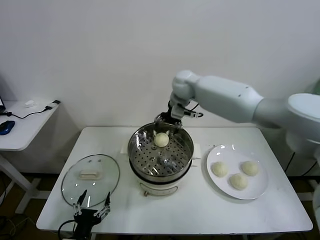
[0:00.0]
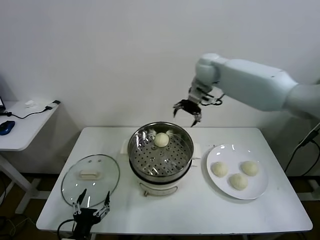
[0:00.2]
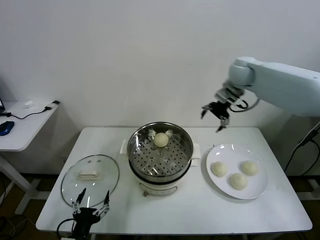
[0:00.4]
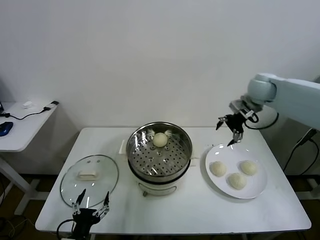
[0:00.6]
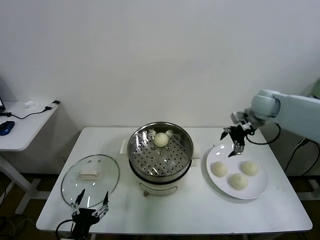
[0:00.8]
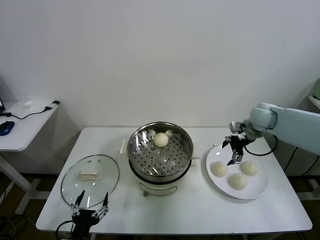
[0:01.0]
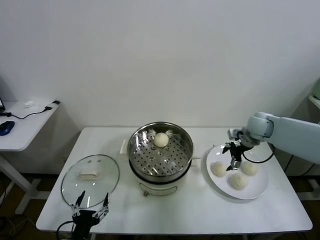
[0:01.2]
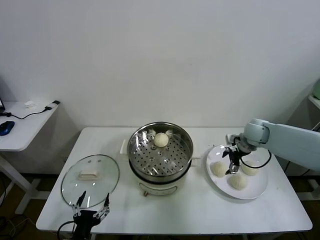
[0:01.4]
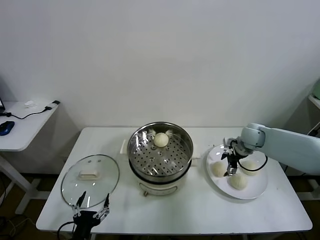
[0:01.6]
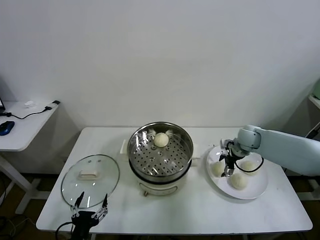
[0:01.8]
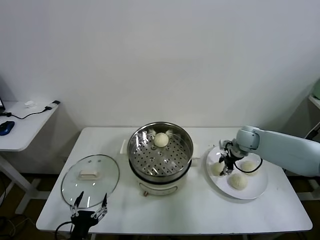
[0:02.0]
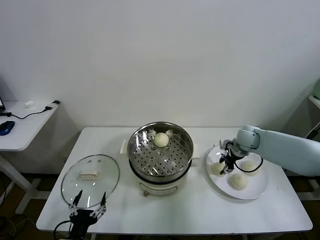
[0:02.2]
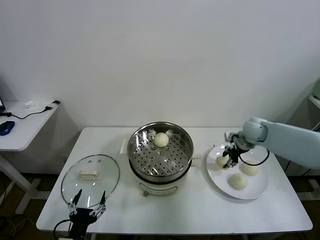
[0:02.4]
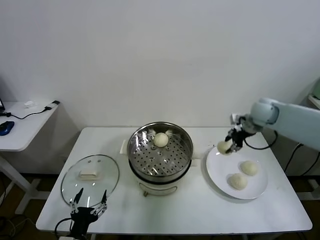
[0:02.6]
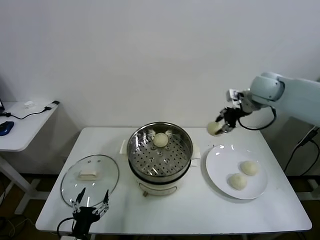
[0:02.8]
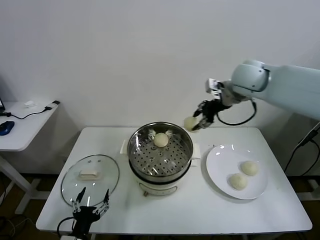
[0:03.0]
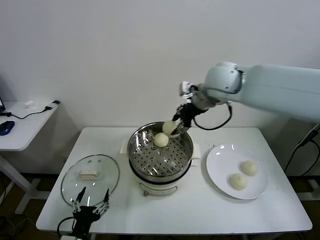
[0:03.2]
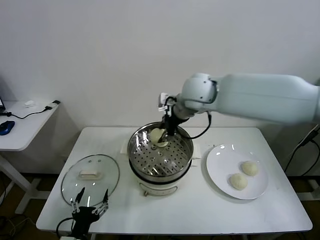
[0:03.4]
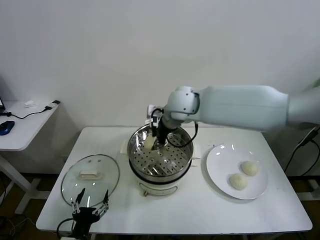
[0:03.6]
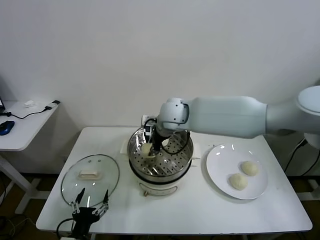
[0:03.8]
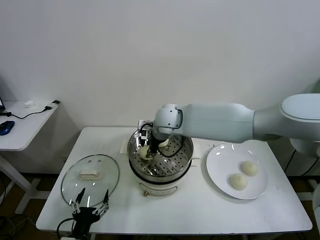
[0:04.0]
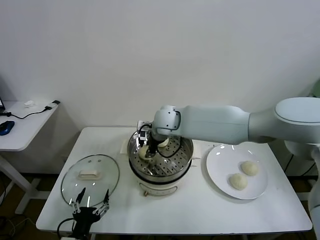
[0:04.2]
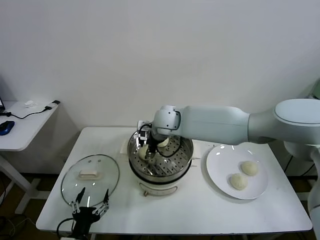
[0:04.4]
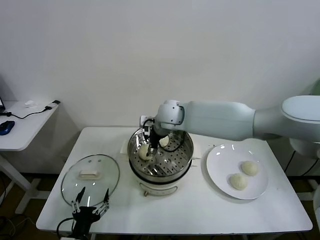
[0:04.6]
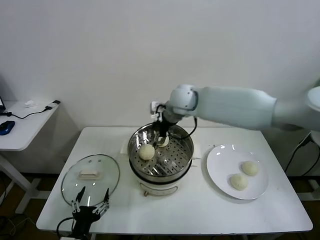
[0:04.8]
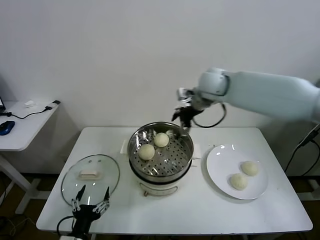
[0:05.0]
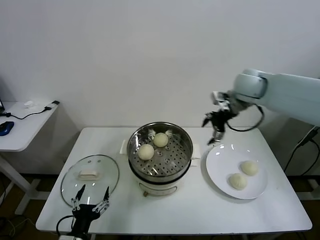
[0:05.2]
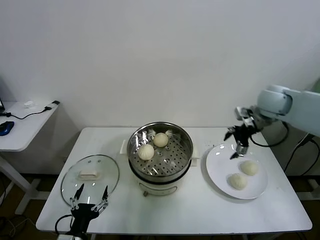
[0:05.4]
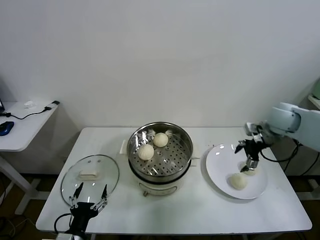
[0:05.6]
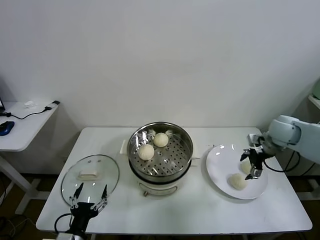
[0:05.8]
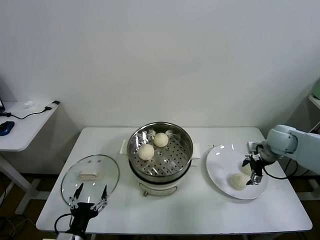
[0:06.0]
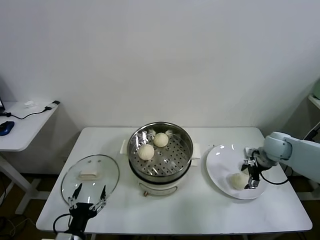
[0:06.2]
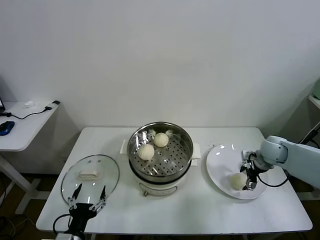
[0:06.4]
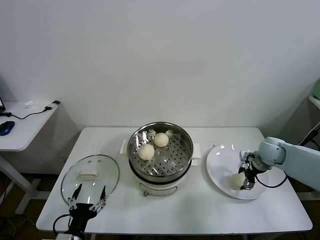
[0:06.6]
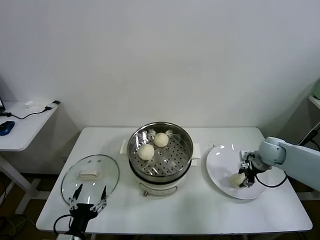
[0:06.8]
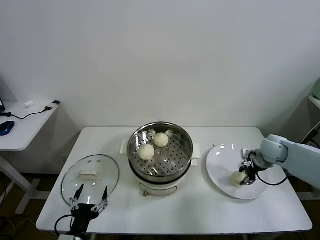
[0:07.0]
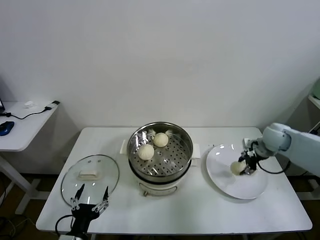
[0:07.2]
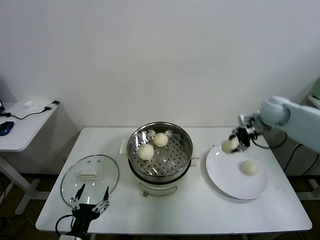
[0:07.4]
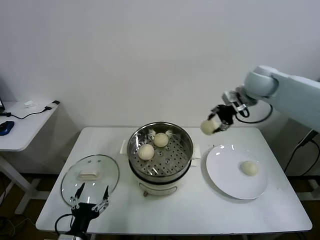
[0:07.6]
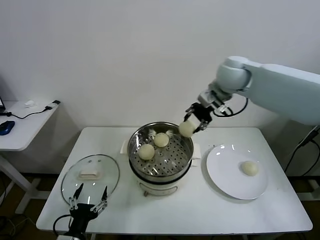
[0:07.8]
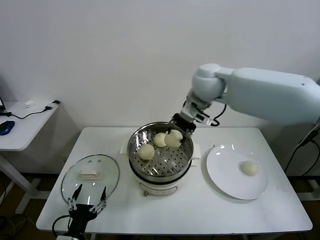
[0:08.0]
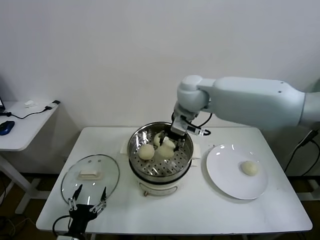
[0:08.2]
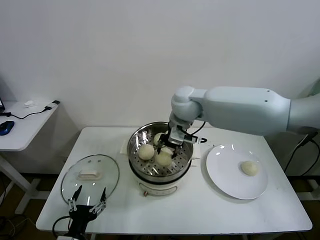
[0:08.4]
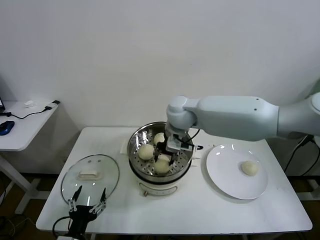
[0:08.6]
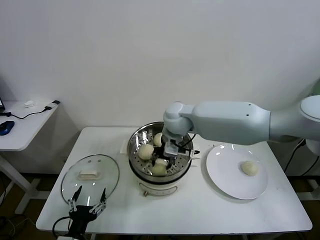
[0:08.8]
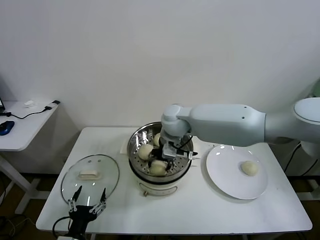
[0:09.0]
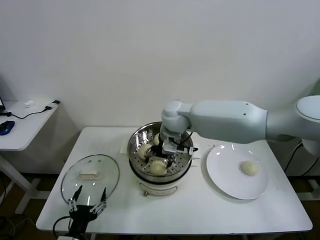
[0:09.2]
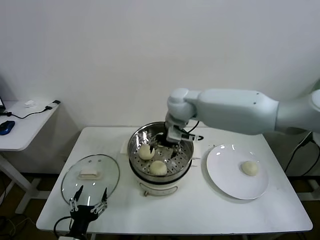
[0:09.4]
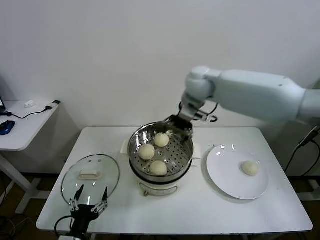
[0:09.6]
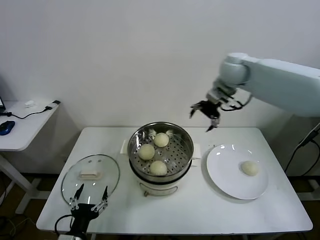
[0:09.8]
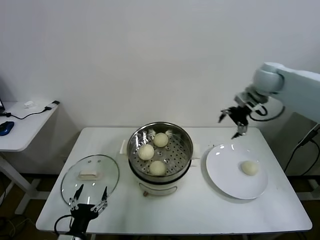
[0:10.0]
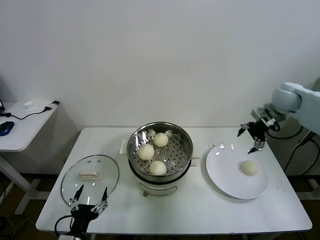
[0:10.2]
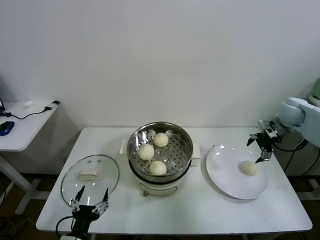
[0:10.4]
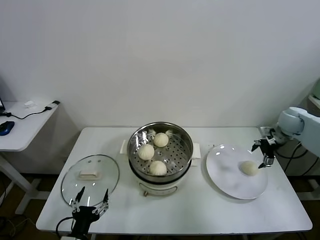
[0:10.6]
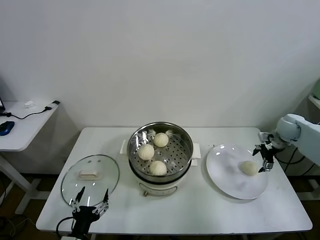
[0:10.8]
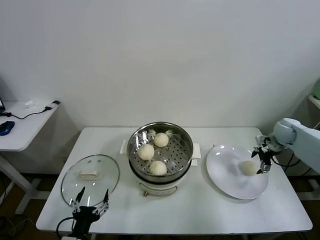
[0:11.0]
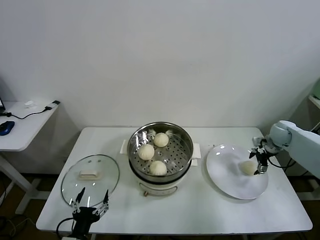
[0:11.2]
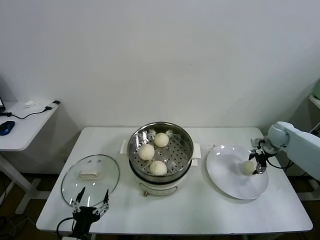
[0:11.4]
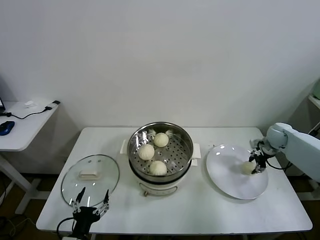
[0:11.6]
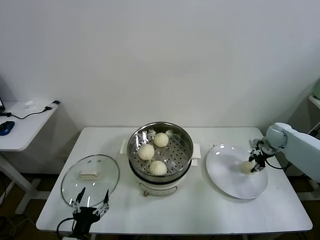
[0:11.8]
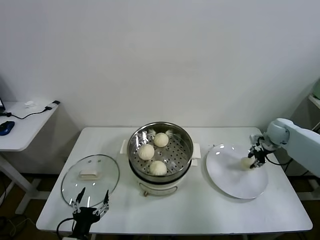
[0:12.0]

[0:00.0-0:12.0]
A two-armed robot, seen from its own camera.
Task of the whole recording: take steamed baozi put them in steamer.
Step, 0:00.0 to 0:02.0: Grasp the baozi in the plate with right gripper.
Step, 0:02.4 to 0:04.4: Place the baozi on the steamer with right gripper.
Step, 0:04.8 to 0:06.8: Grasp the baozi in the plate with right gripper.
Step, 0:07.0 to 0:09.2: Place the baozi on the steamer with right gripper.
Step, 0:09.4 to 0:11.6: Grasp the baozi in the plate with right gripper.
0:00.0 to 0:01.6: The right gripper shifts some 30 cm to the right and downward.
0:01.6 to 0:03.0: The right gripper shifts some 30 cm upward and to the left, and closes.
0:03.0 to 0:04.4: The right gripper shifts some 25 cm to the left and downward, and opens up.
0:04.4 to 0:06.0: The right gripper goes some 40 cm to the right.
0:06.0 to 0:07.6: The right gripper moves upward and to the left, about 25 cm, and closes up.
0:07.6 to 0:09.0: The right gripper shifts some 25 cm to the left and downward.
0:09.0 to 0:10.4: The right gripper moves to the right, approximately 40 cm, and opens up.
0:10.4 to 0:12.0: The right gripper goes approximately 10 cm downward, and closes up.

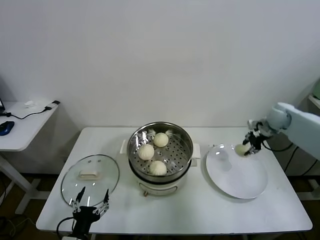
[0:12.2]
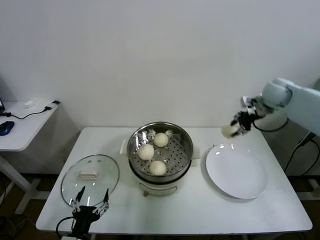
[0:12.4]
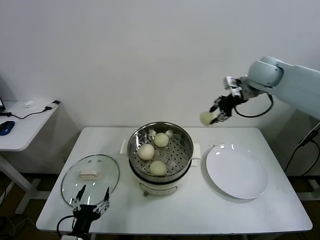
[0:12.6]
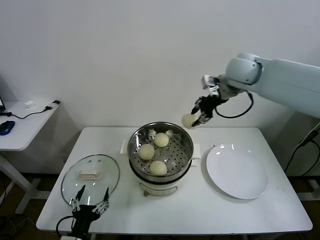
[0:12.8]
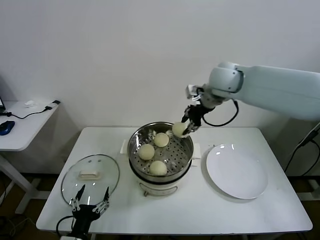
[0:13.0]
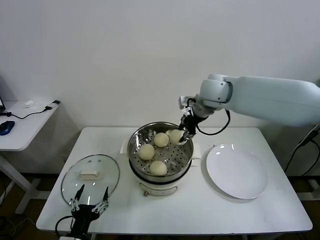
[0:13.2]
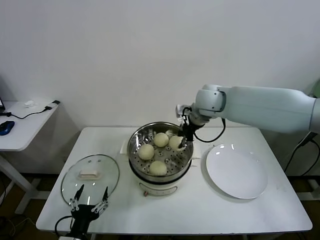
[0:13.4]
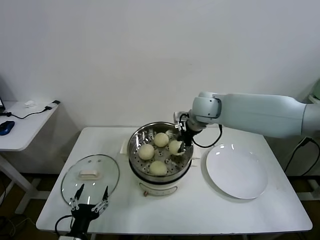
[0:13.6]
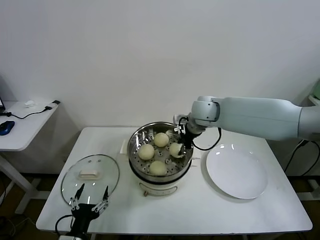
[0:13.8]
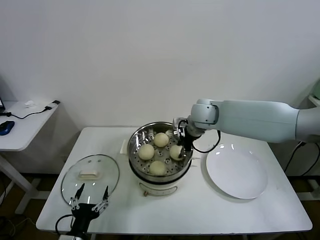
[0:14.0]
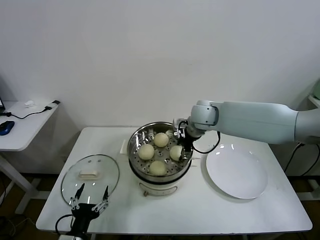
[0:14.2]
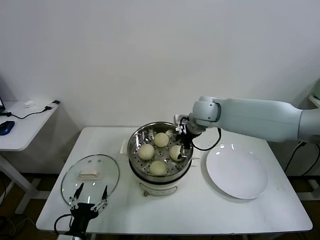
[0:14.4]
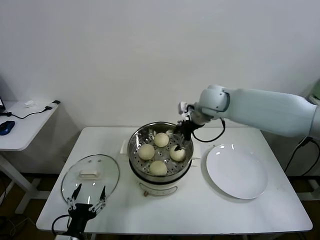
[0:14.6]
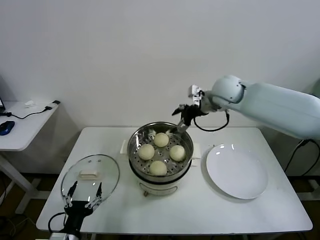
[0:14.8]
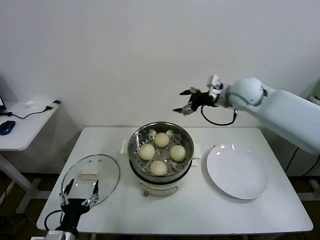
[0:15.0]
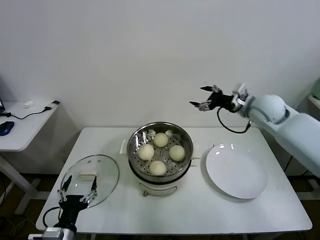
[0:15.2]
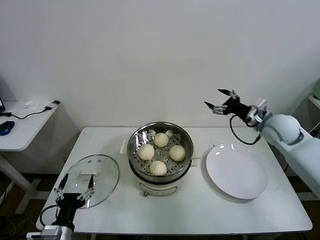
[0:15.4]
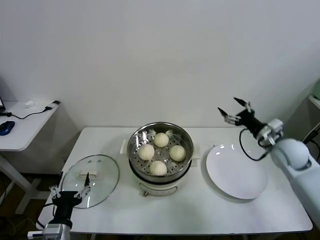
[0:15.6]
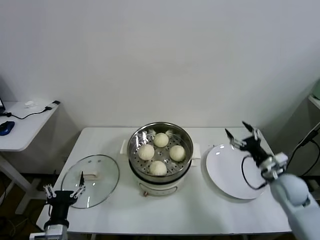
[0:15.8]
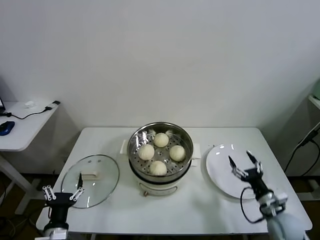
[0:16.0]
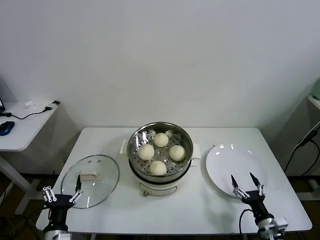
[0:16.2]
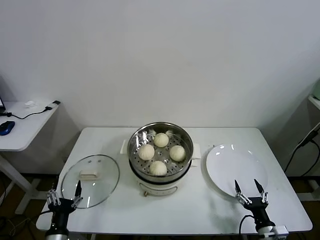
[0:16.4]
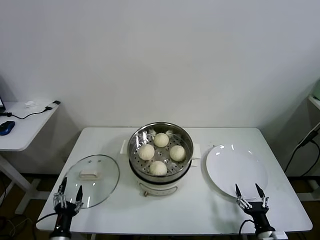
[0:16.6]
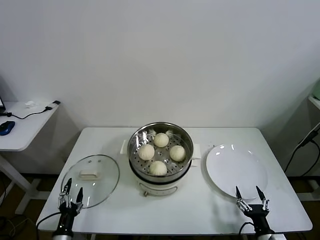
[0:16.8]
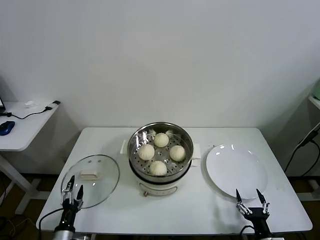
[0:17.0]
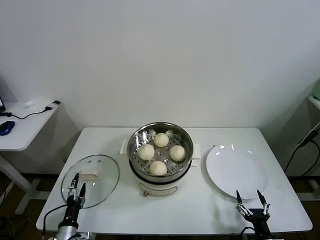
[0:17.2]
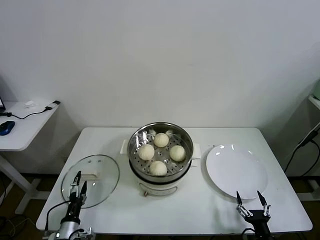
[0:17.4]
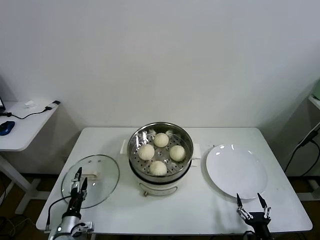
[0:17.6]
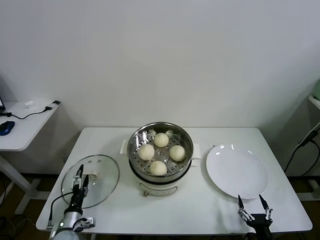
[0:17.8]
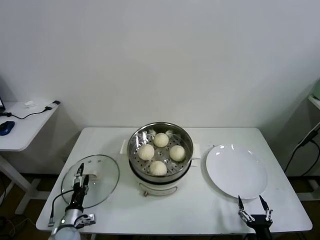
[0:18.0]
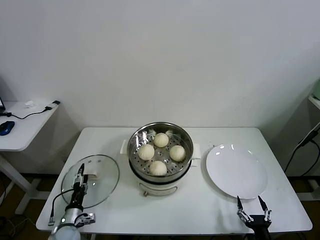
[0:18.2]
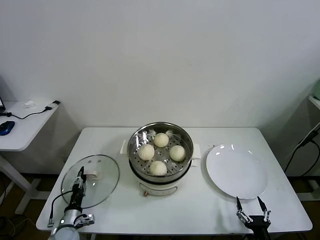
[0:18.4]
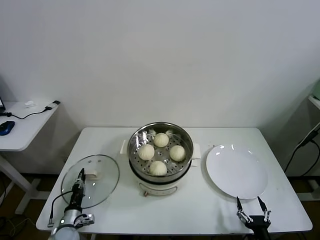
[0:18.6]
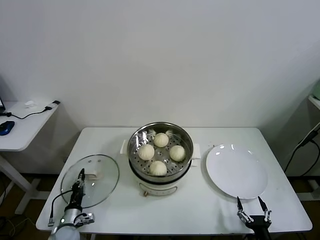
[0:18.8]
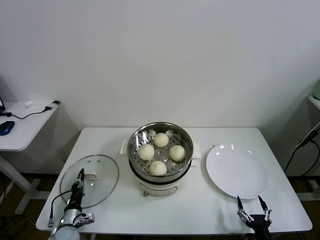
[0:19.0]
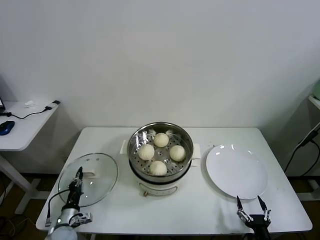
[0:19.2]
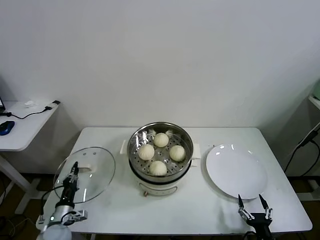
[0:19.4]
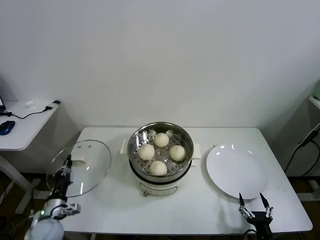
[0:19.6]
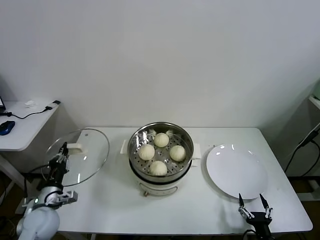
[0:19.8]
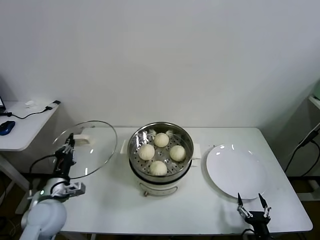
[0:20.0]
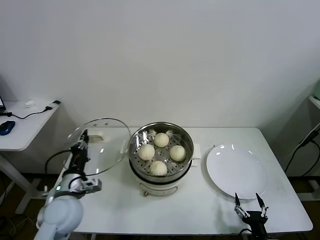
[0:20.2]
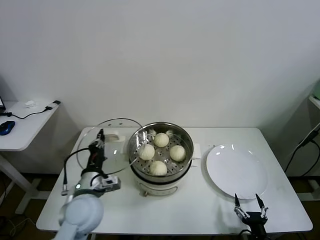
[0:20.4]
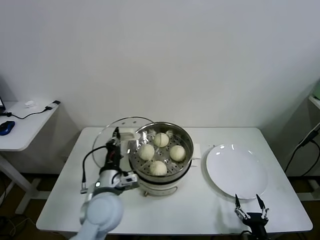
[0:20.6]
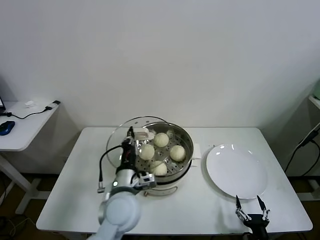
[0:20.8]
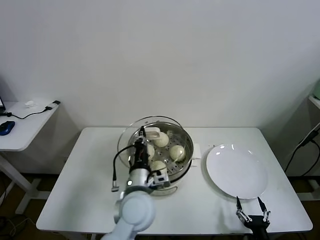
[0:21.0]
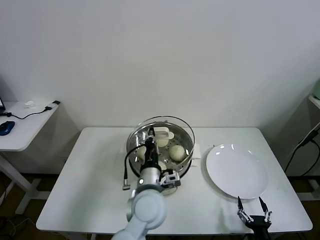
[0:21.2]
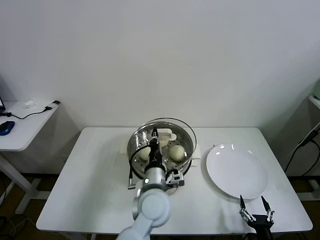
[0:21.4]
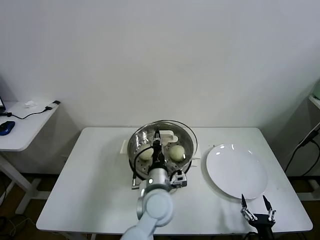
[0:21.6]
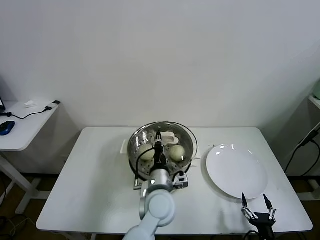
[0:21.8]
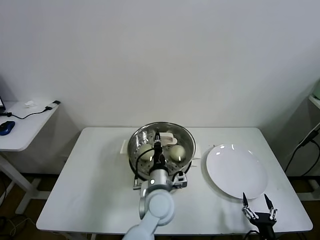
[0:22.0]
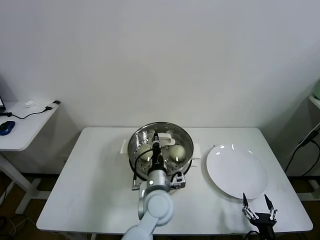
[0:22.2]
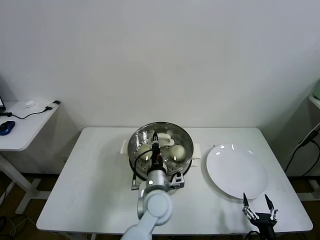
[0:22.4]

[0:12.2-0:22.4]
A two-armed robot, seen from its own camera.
Task of the whole recording: take steamed baozi put them in steamer.
Step, 0:12.2 to 0:14.4: Place the baozi on the steamer with right gripper.
Step, 0:14.6 to 0:18.8: Grasp the pot lid with left gripper.
0:12.2 to 0:13.6: The right gripper shifts approximately 30 cm to the left.
0:13.6 to 0:15.2: The right gripper heads to the right, covering about 20 cm, and opens.
0:15.2 to 0:16.6: The left gripper is displaced downward by approximately 10 cm. The right gripper travels downward and backward by roughly 50 cm.
0:16.6 to 0:18.0: The left gripper is displaced forward and downward by some 10 cm.
0:18.0 to 0:19.4: The left gripper closes.
0:19.4 to 0:21.0: The left gripper moves to the right and upward, approximately 35 cm.
0:21.0 to 0:22.4: The left gripper moves to the right and downward, about 10 cm.
